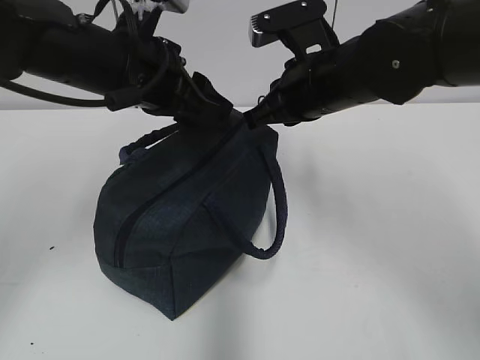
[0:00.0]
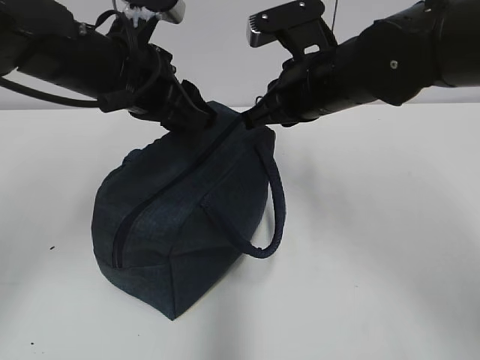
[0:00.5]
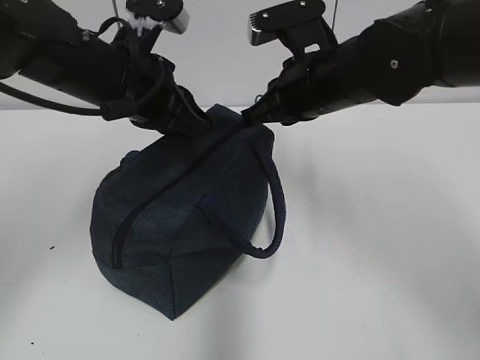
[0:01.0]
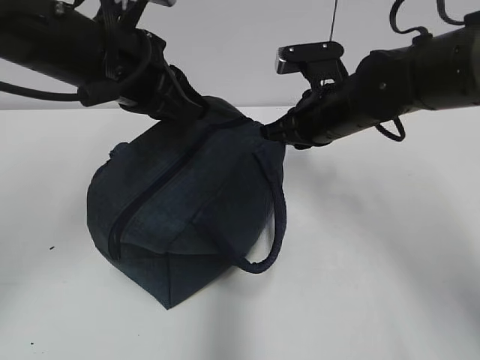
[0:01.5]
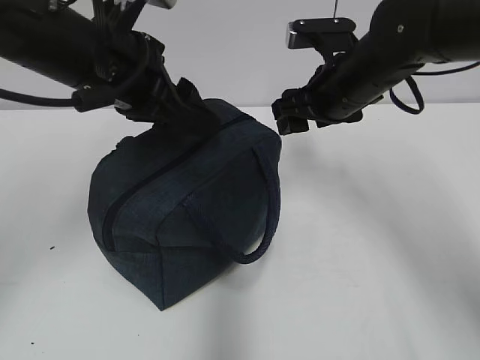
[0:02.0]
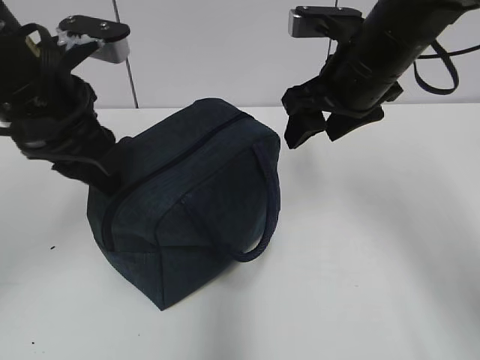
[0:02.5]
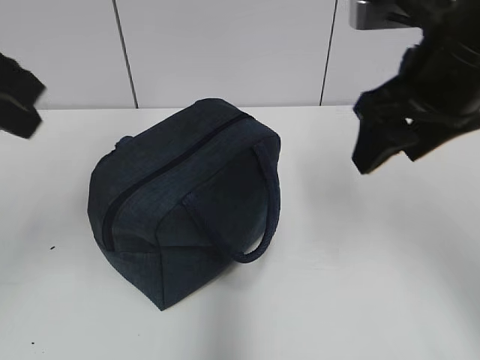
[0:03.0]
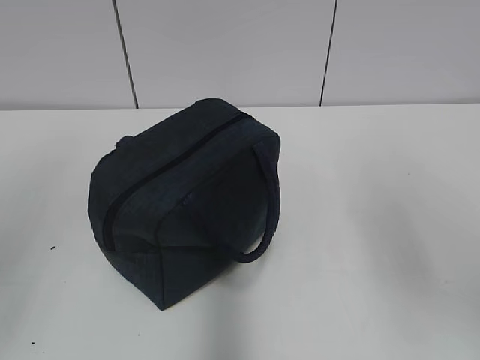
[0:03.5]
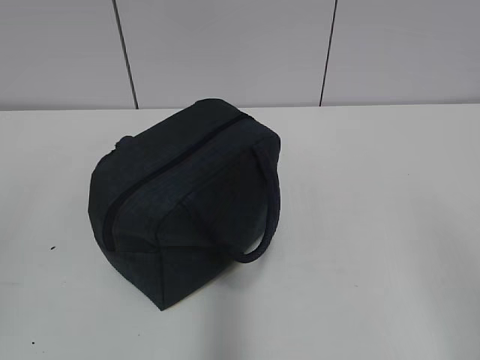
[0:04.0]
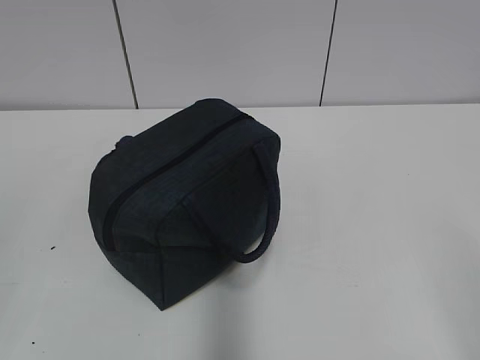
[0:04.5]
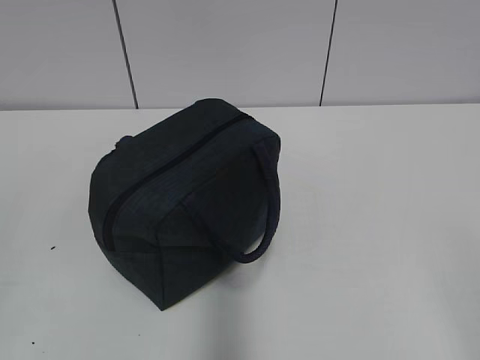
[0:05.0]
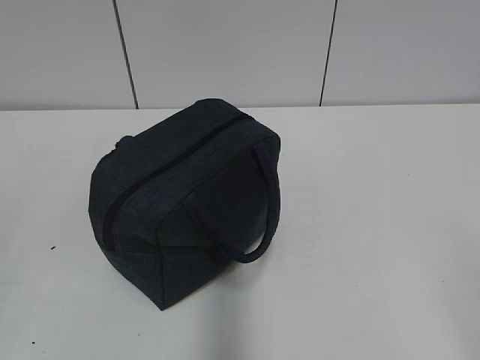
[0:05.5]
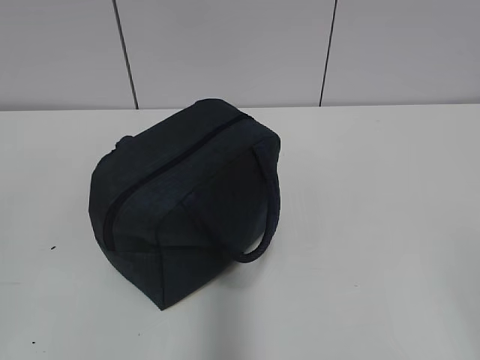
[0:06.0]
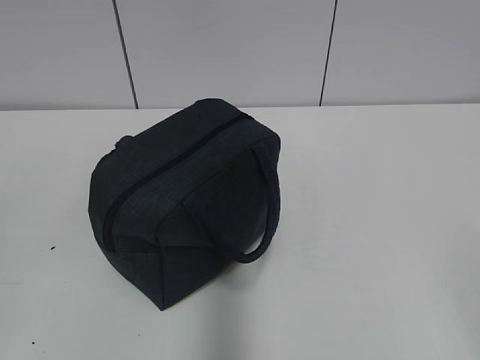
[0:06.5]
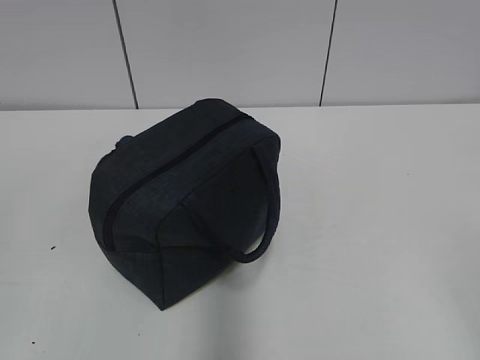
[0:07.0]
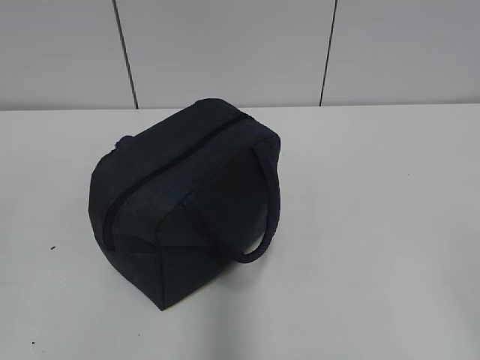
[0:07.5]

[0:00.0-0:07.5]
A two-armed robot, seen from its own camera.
0:00.0 to 0:02.0: The right gripper shifts by about 5 cm, and opens; the left gripper closes and opens again.
0:02.0 to 0:04.0: The left gripper travels backward and to the left by about 35 cm. The right gripper shifts about 35 cm backward.
